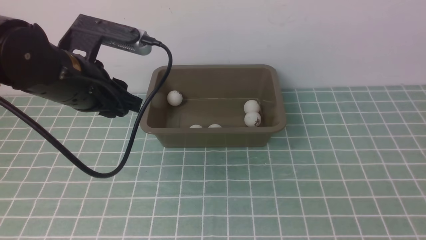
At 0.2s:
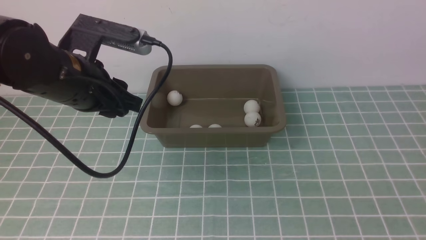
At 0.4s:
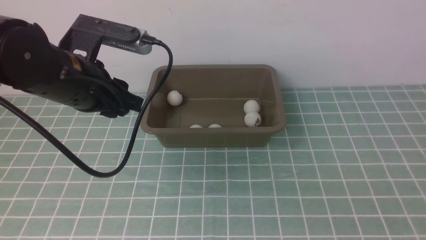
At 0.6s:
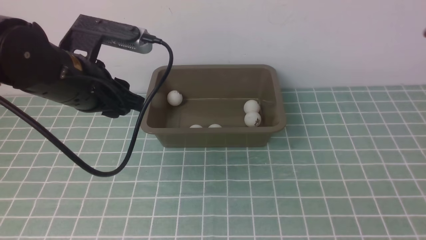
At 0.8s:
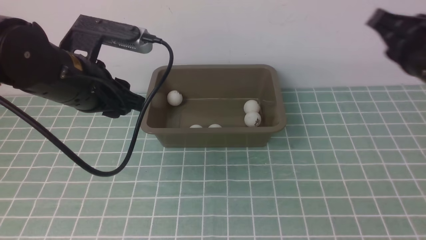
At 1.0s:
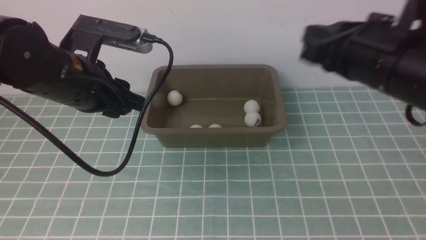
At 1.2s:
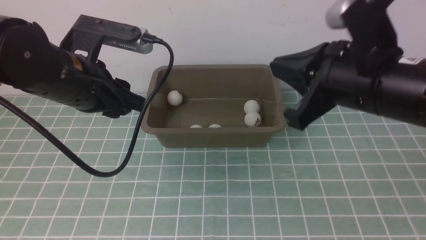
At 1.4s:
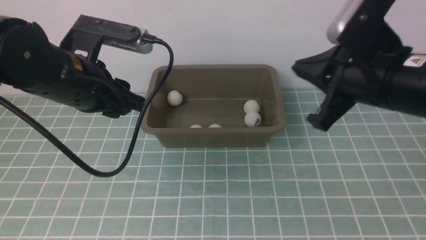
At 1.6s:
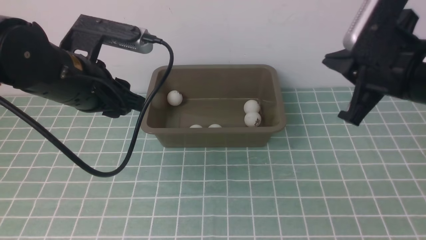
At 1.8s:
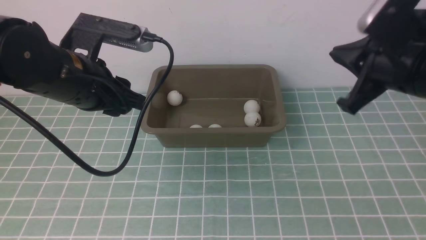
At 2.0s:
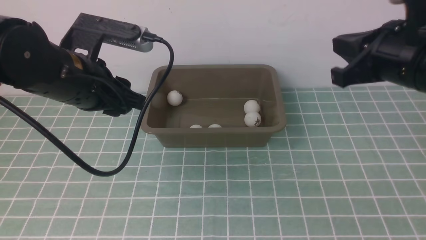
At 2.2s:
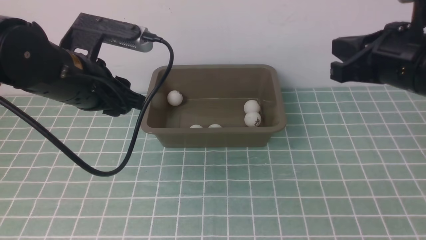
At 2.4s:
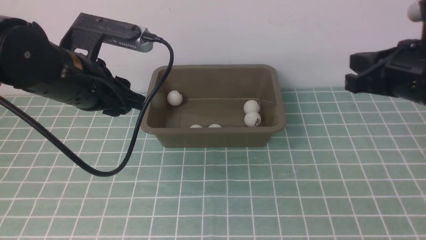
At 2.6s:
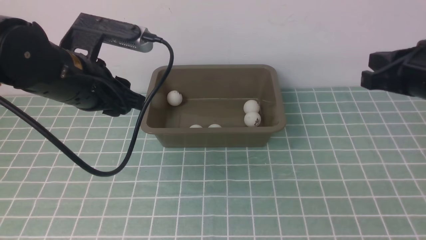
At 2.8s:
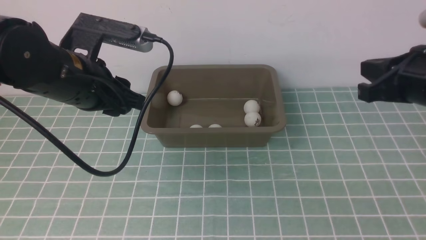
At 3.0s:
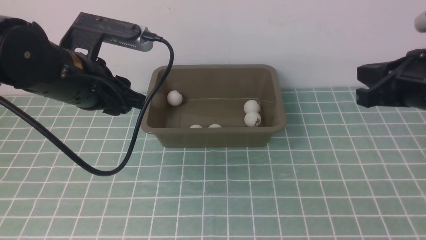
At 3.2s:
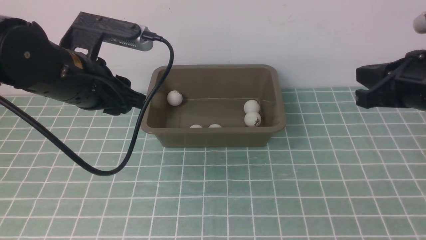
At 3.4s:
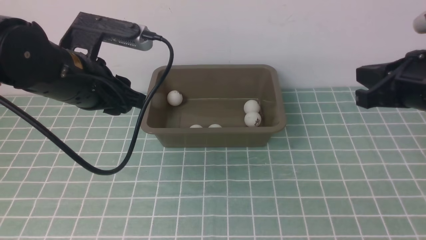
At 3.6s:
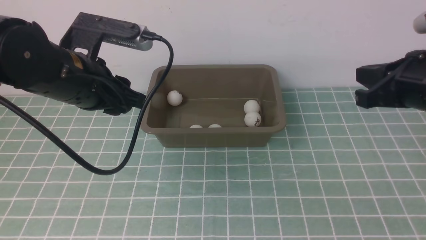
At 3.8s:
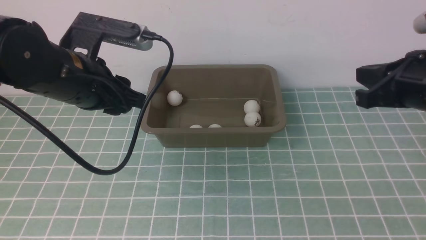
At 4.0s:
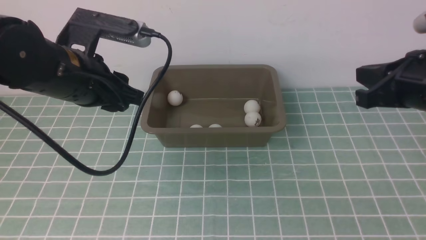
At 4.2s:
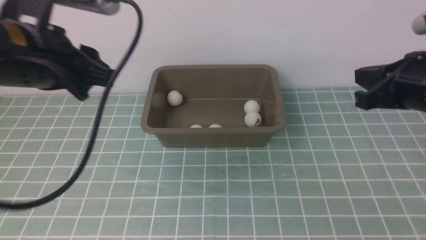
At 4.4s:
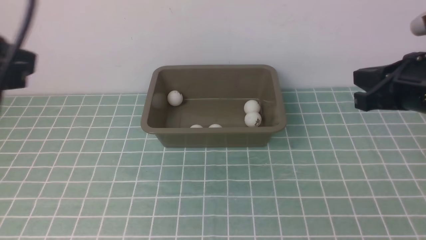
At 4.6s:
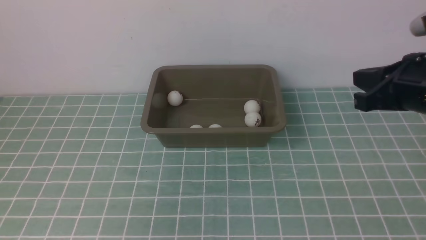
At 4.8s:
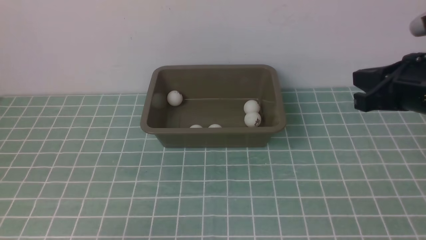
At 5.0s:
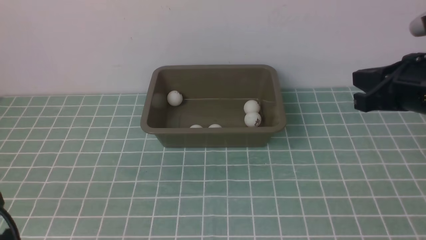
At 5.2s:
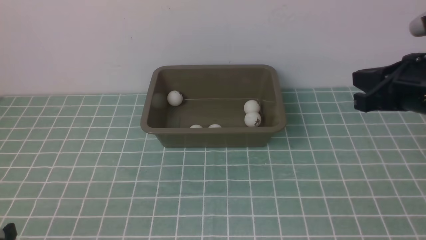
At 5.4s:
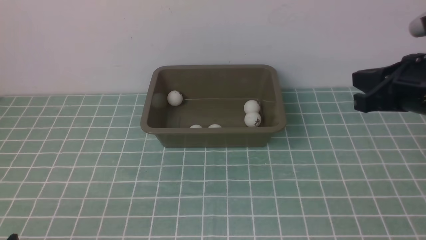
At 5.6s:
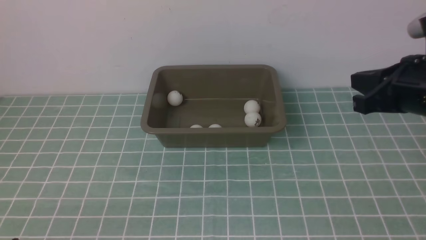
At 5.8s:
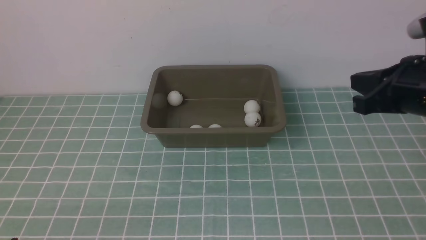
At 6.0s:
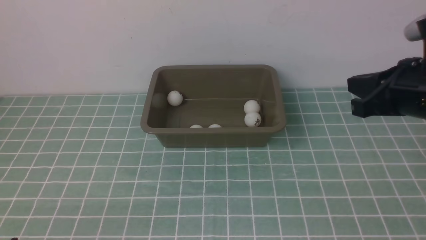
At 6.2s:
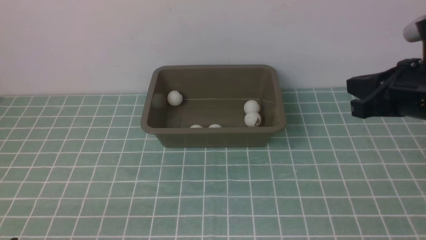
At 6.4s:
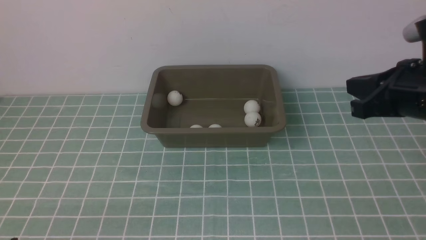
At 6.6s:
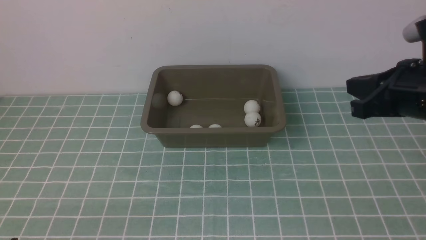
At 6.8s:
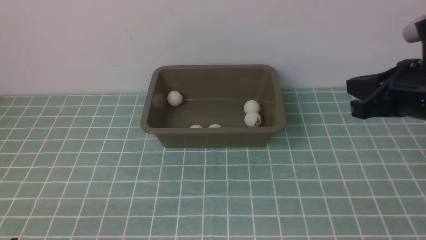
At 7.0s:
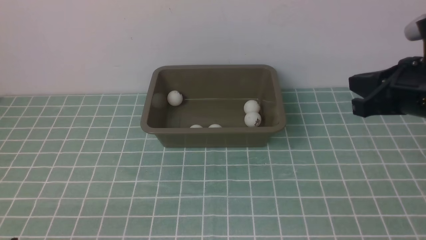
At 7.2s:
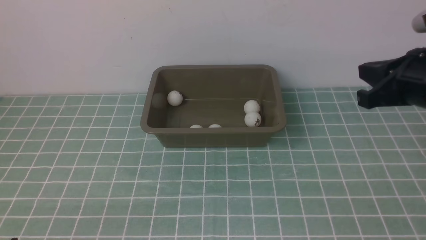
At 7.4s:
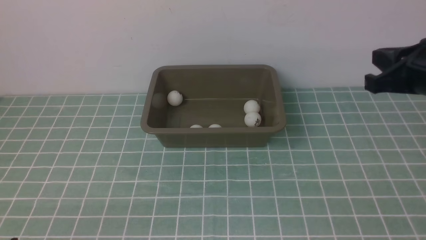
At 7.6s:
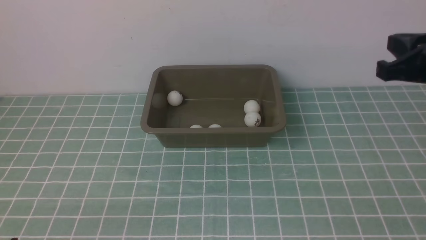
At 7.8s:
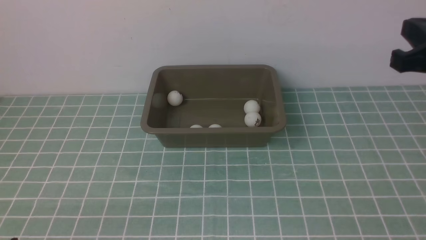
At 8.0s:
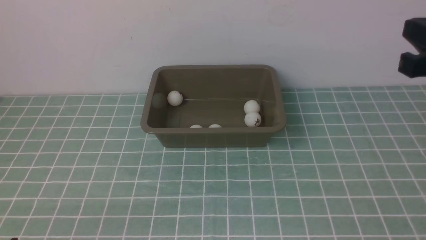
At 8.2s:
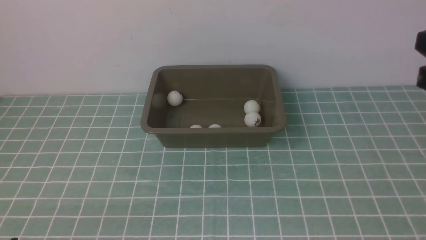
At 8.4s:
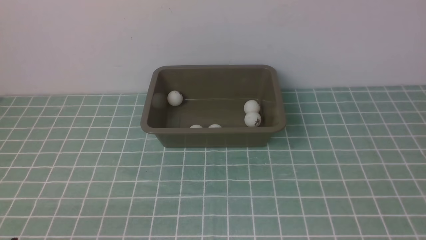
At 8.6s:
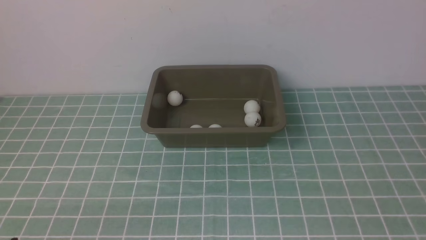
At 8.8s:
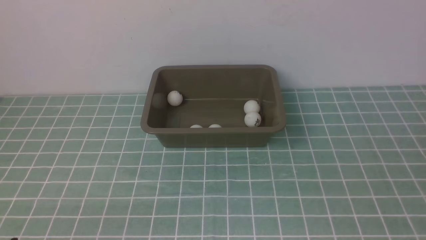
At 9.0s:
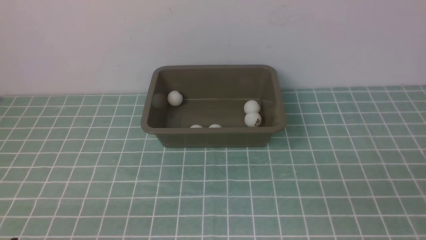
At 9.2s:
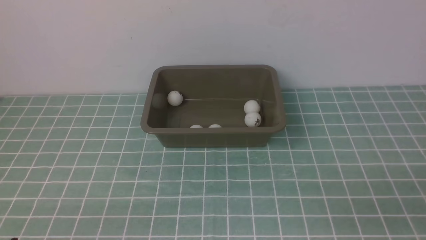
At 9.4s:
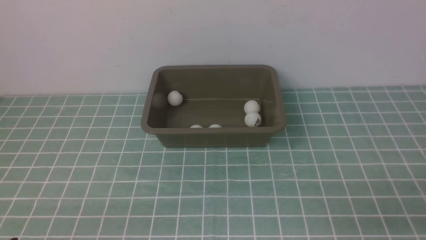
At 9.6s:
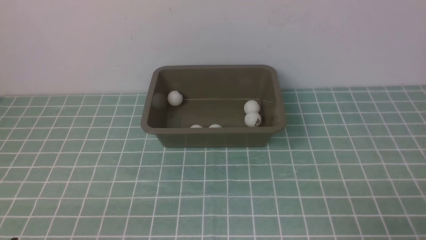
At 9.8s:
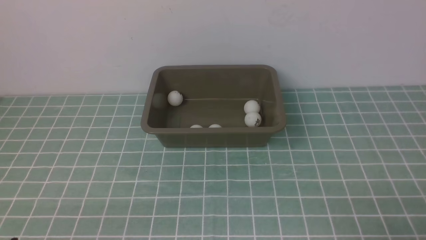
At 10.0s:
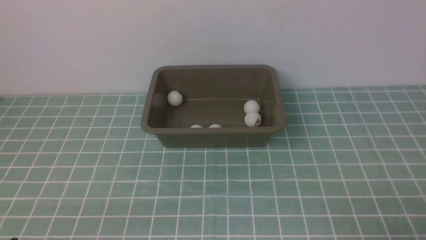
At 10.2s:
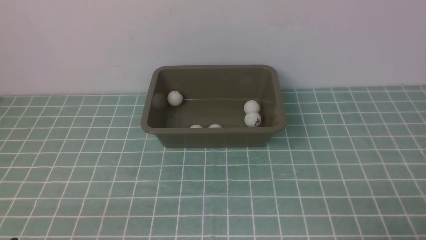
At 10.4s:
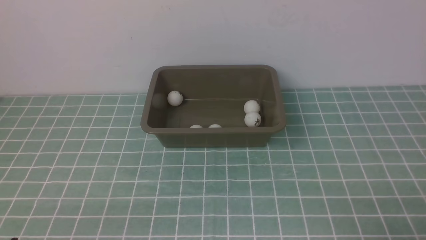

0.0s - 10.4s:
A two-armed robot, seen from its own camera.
0.0s - 1.4s: The right gripper is displaced to the left and downward by approximately 10 cm.
1.4s - 3.0s: The right gripper heads to the right, covering approximately 5 cm.
3.0s - 4.4s: The left gripper is displaced backward, to the left and upward by some 20 cm.
4.4s - 6.0s: The left gripper heads downward, covering approximately 20 cm.
6.0s - 7.4s: The grippers stay close to where they were, moving slightly.
7.4s - 9.0s: The right gripper travels backward and downward by roughly 25 cm.

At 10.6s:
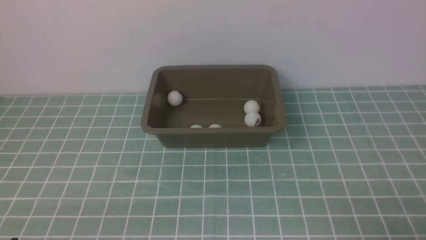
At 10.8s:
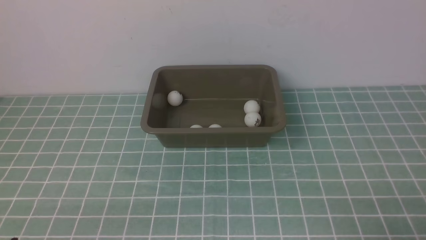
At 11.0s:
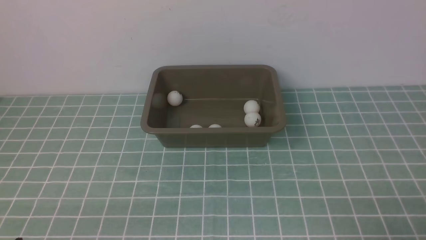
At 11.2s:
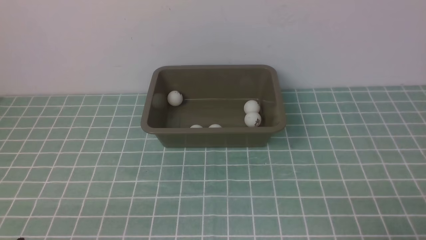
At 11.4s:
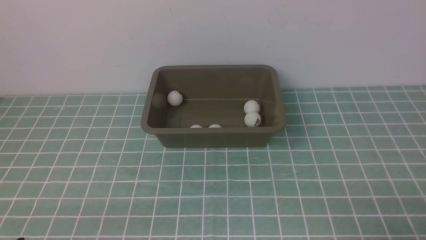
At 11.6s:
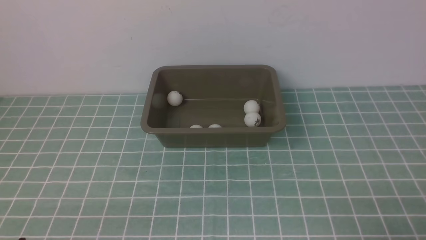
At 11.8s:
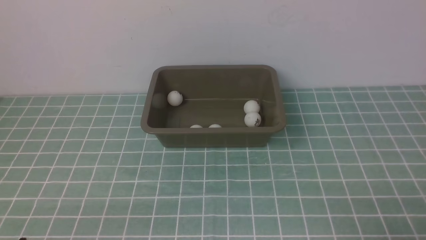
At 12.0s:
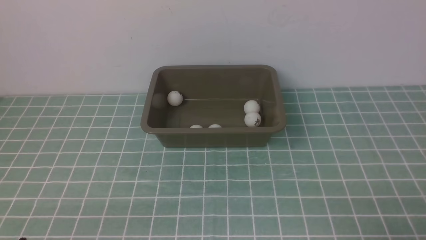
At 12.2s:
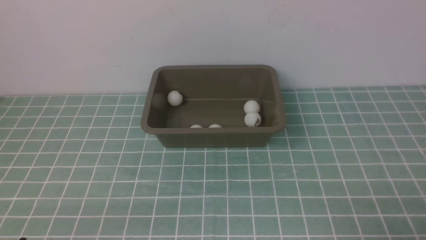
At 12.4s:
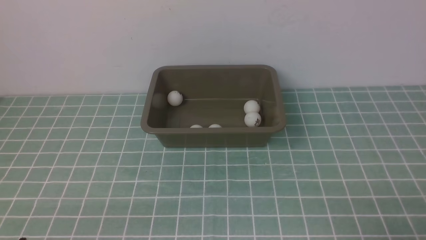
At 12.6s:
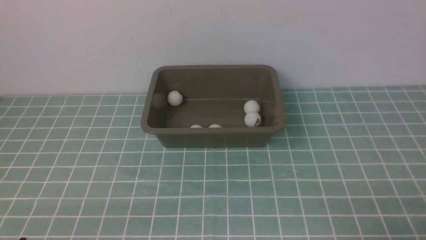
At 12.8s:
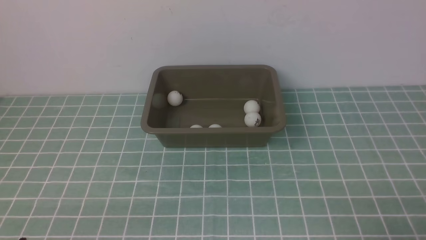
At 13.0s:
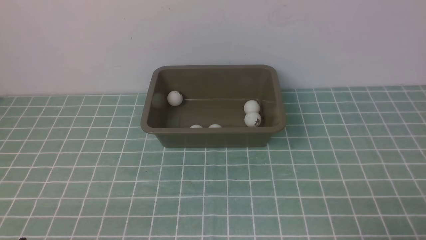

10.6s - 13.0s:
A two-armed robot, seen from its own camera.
10.6s - 13.0s: Both grippers stay about where they are.

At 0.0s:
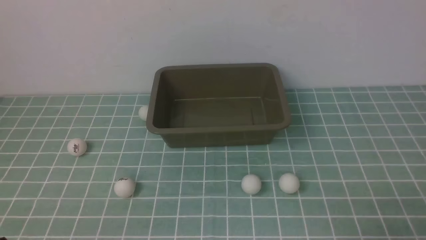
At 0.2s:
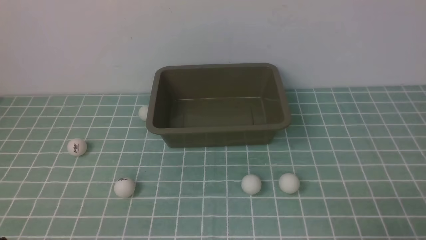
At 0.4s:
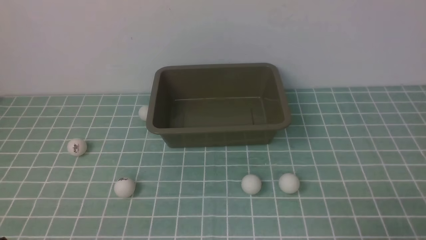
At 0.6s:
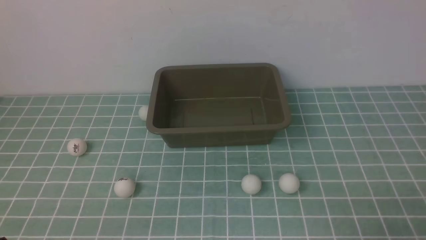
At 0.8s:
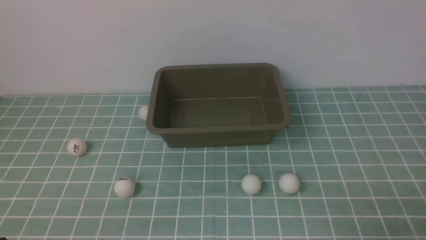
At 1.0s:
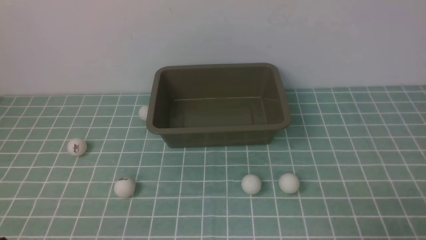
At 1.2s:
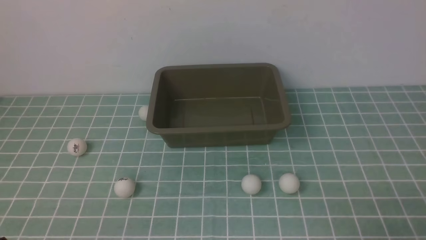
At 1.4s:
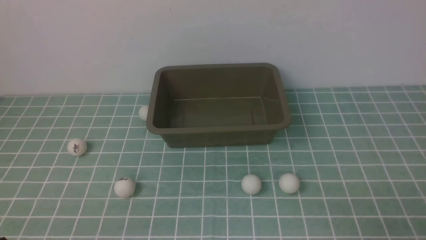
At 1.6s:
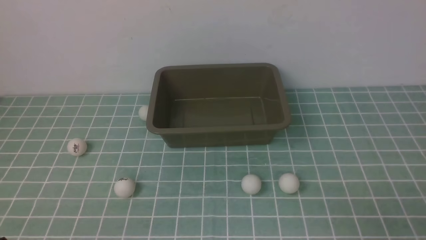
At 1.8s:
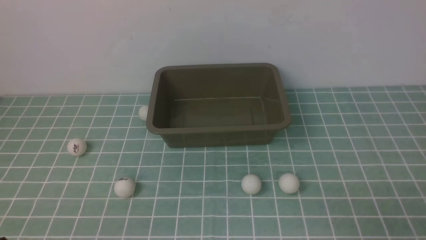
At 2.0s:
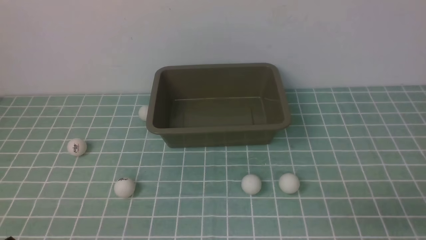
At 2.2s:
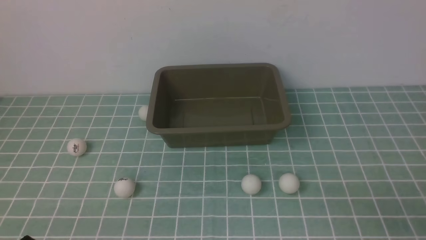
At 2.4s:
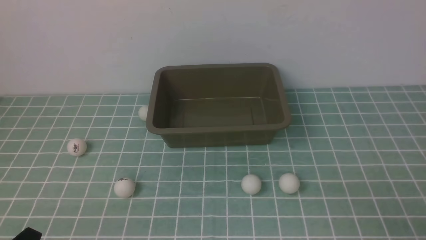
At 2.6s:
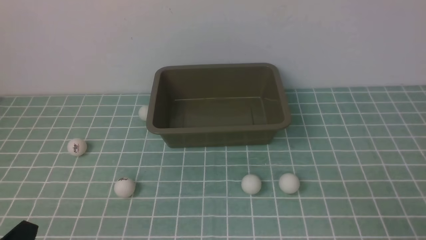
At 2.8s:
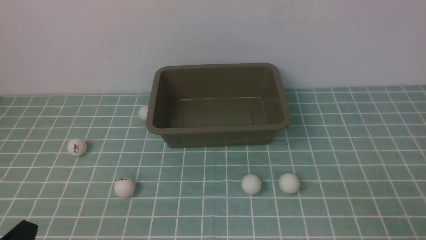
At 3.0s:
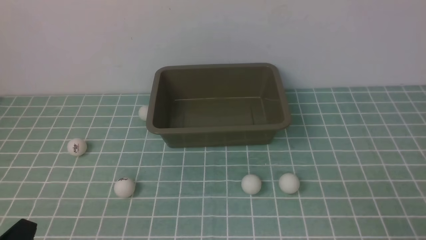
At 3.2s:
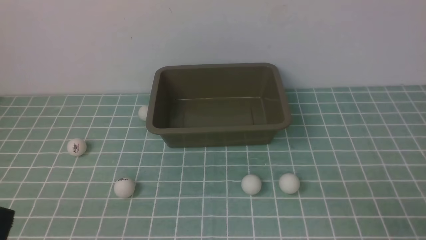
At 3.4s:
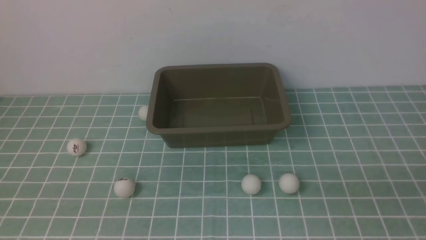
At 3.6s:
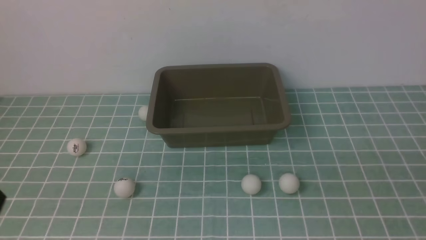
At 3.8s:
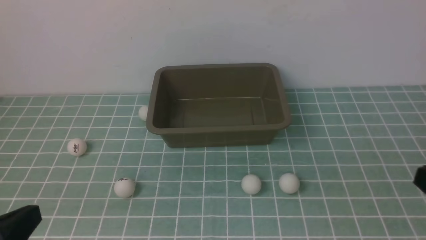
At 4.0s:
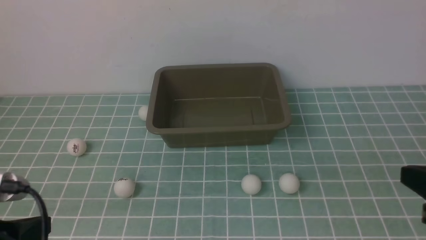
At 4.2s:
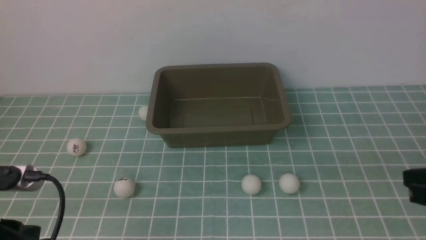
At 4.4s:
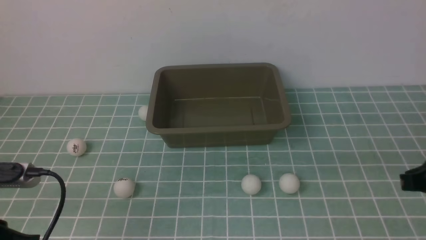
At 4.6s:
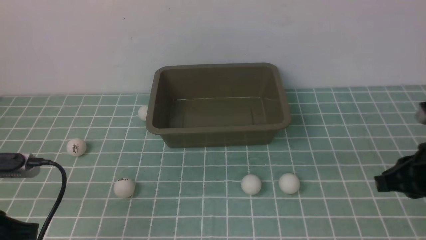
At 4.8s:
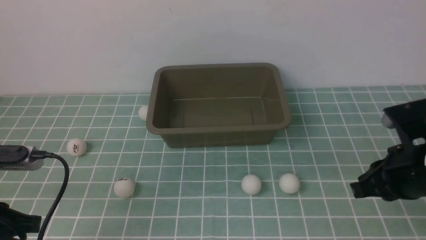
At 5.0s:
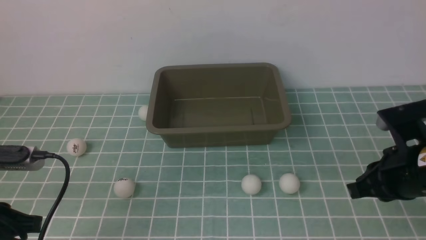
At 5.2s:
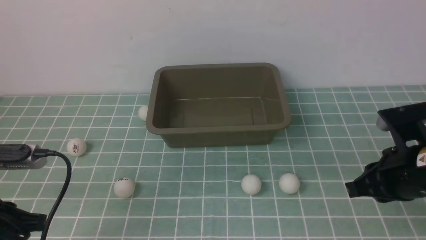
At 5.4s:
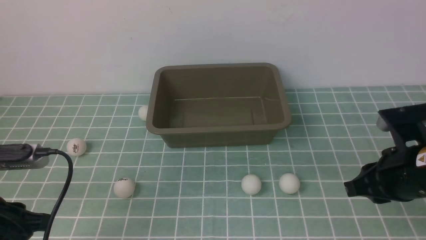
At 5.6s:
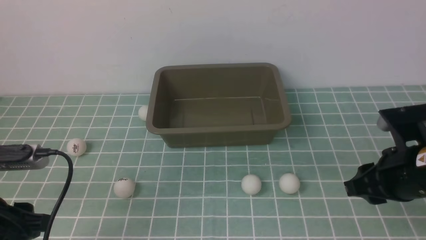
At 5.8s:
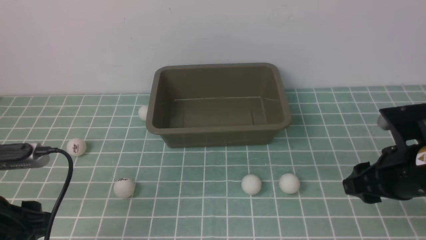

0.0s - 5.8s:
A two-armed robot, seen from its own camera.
2.8s - 4.4s: The left gripper goes some 10 cm forward and upward.
4.4s - 5.8s: The left gripper shifts by some 5 cm, and opens up. Meanwhile the right gripper heads to the left and forward, covering some 10 cm, and opens.
